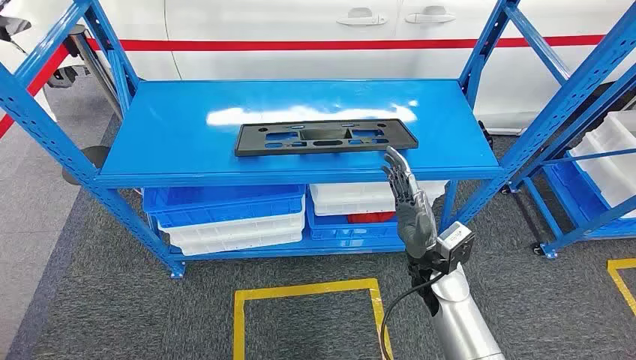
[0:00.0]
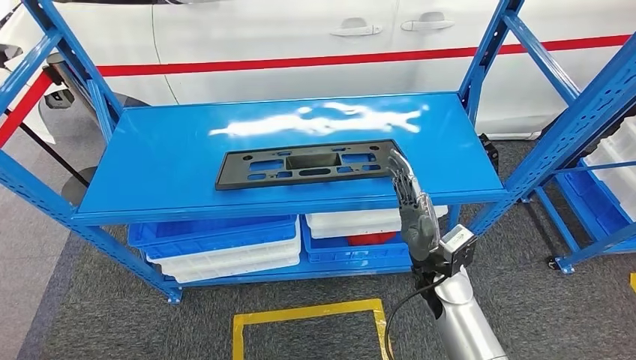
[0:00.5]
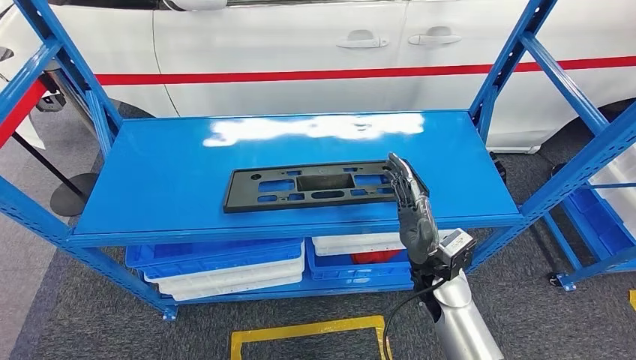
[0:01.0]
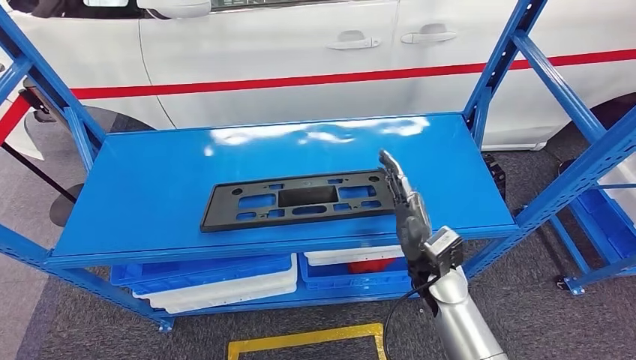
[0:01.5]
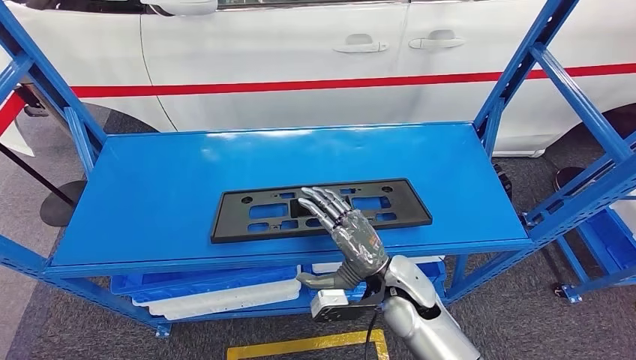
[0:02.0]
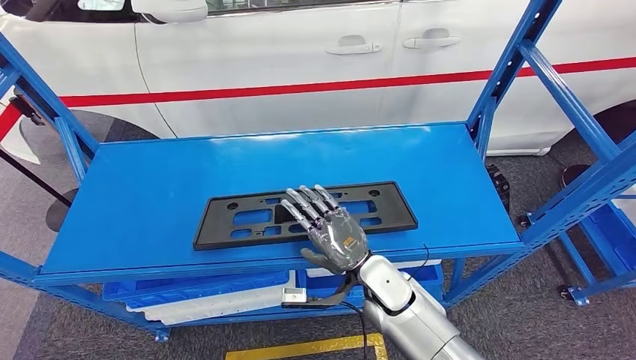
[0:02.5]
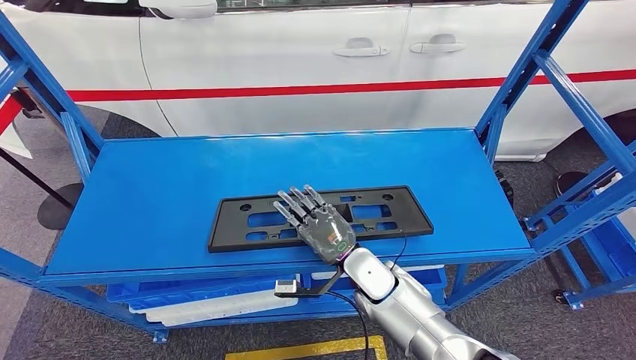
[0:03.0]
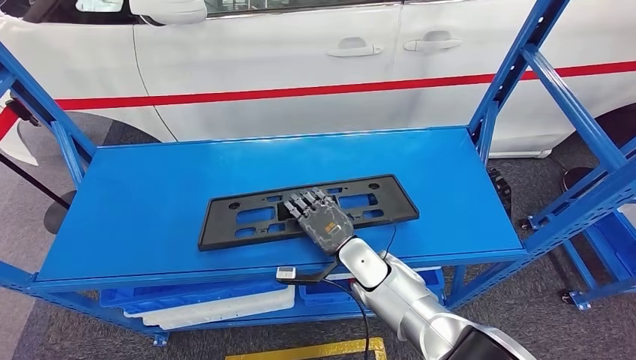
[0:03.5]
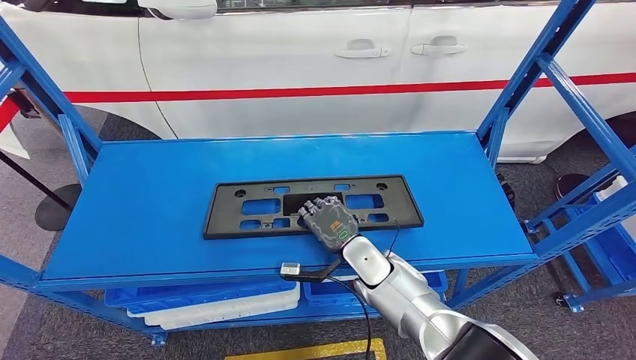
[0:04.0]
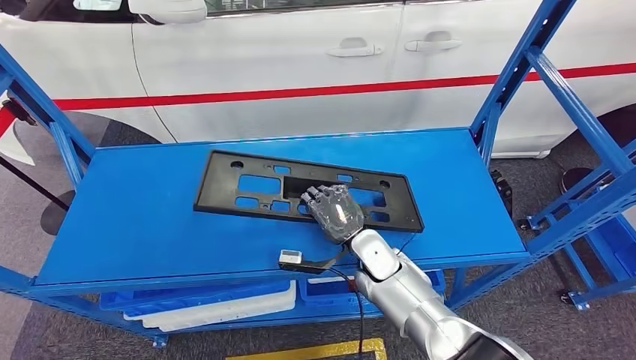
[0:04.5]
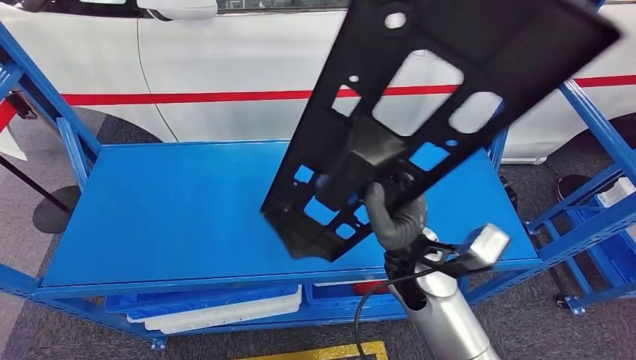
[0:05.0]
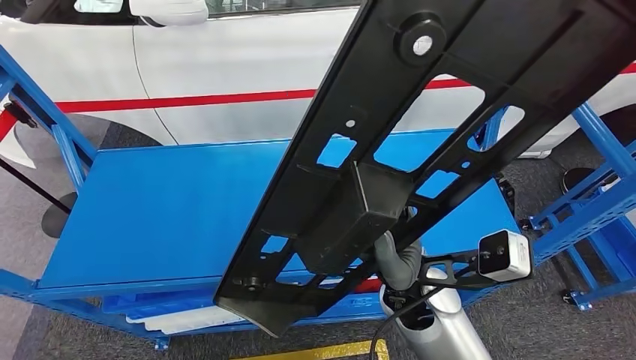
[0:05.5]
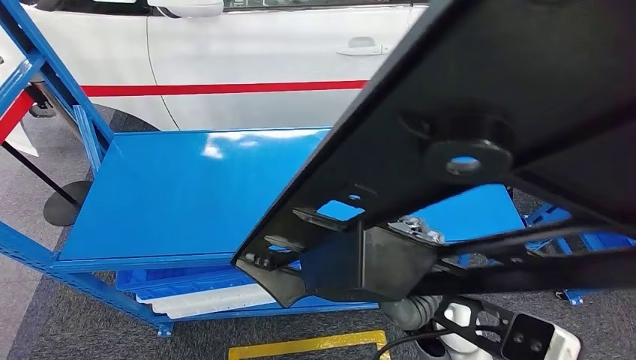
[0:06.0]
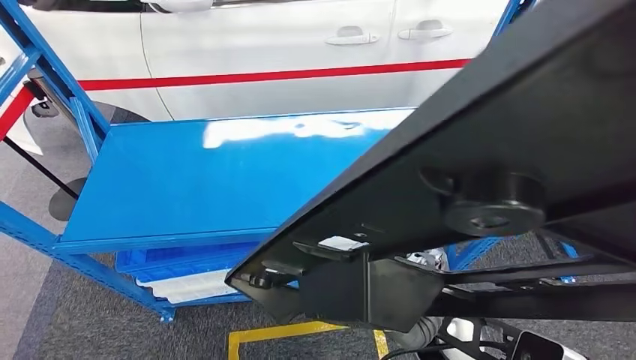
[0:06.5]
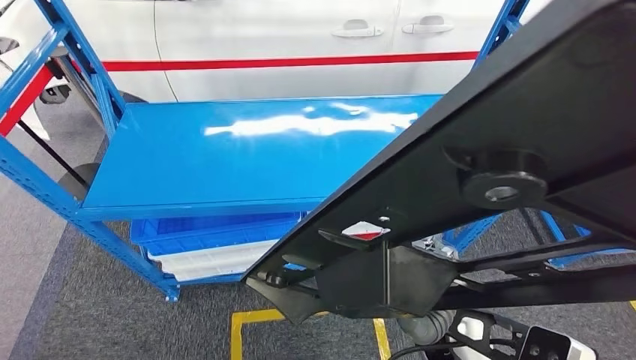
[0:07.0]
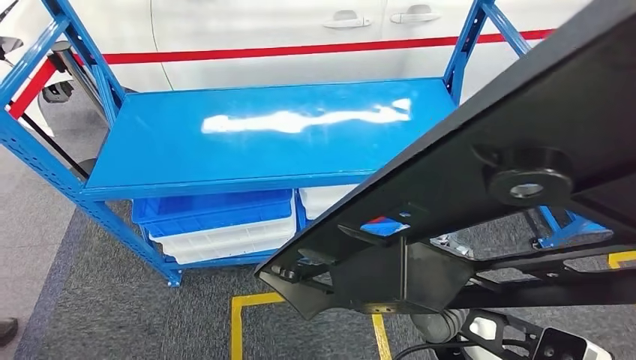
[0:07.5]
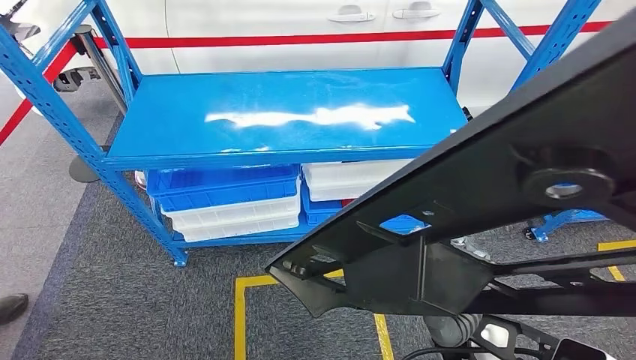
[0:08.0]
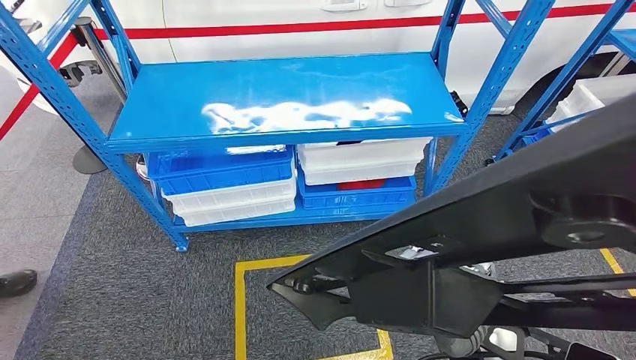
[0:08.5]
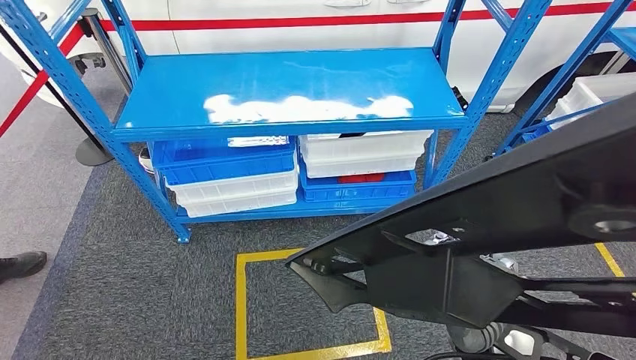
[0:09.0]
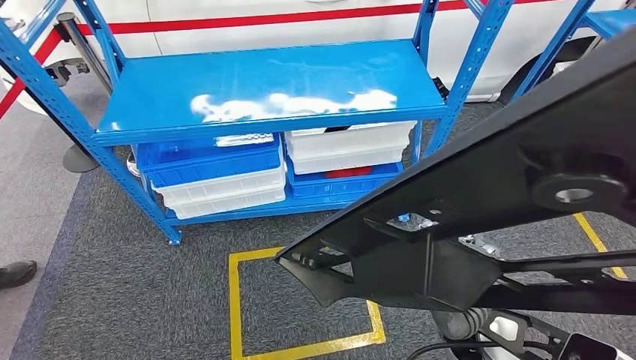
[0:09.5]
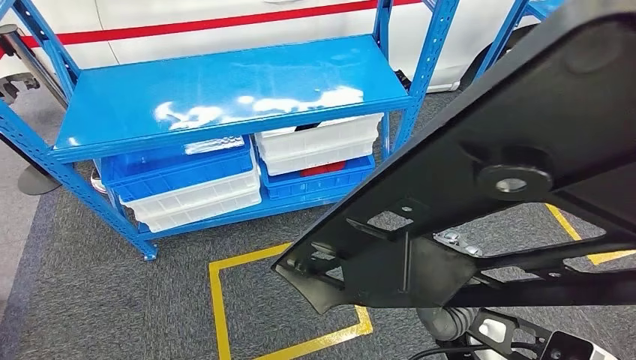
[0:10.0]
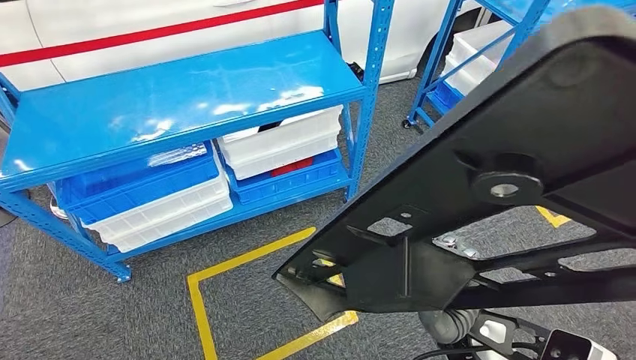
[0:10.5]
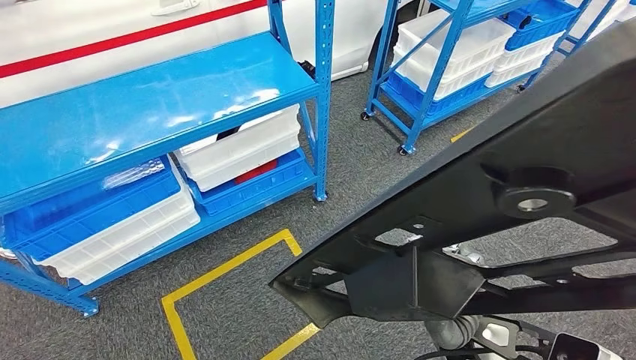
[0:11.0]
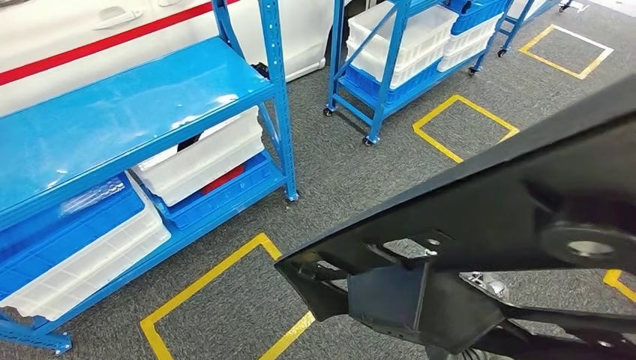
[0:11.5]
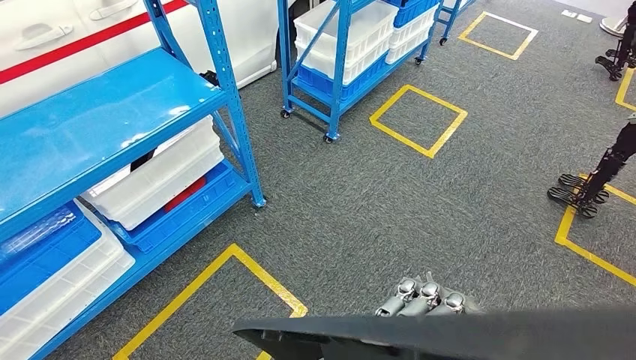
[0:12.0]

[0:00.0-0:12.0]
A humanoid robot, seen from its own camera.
Step, 0:00.0 to 0:04.5: Pick up the large material from the shelf.

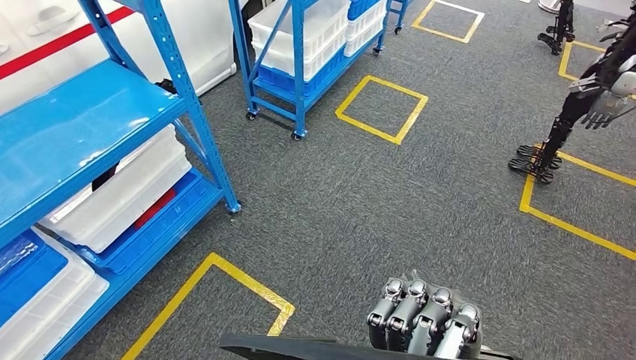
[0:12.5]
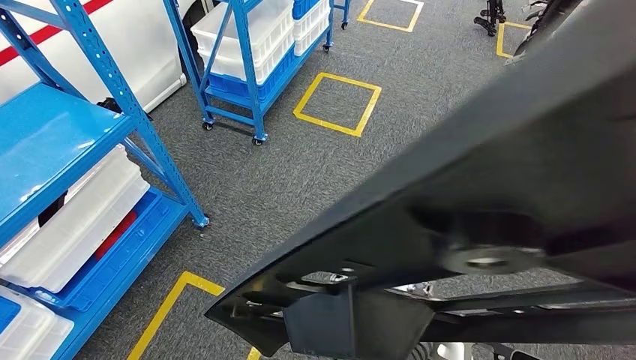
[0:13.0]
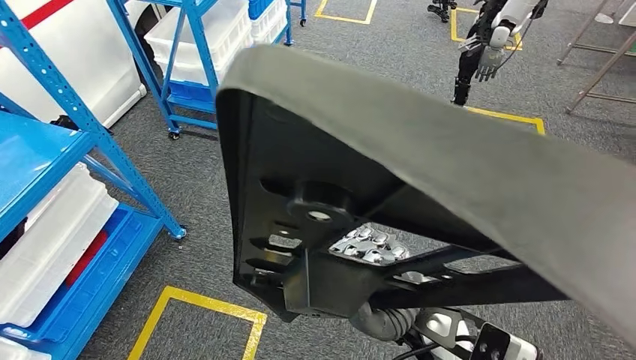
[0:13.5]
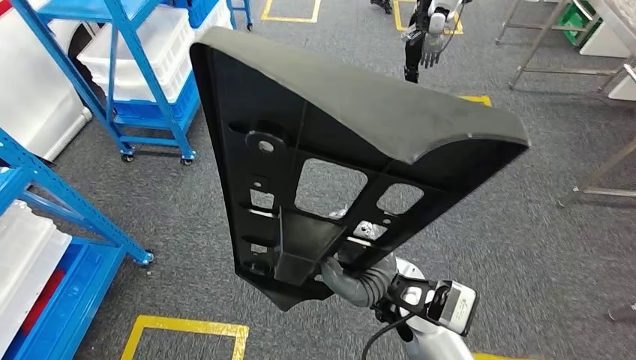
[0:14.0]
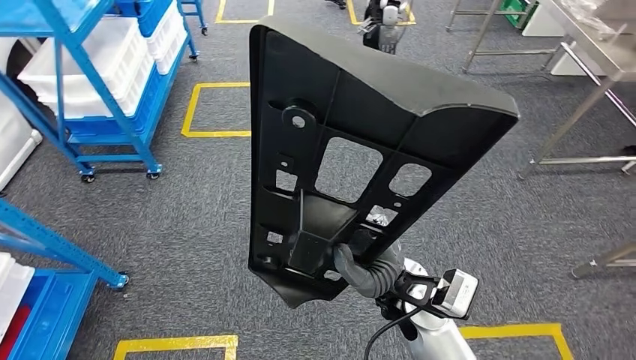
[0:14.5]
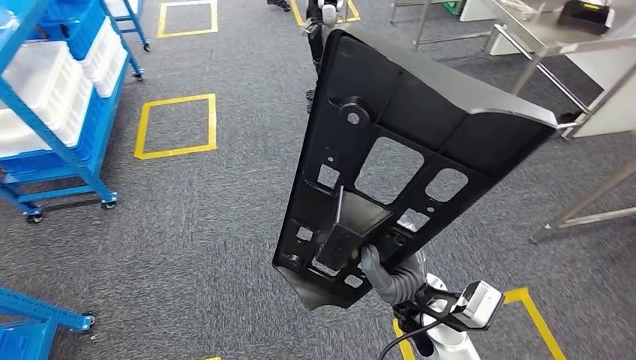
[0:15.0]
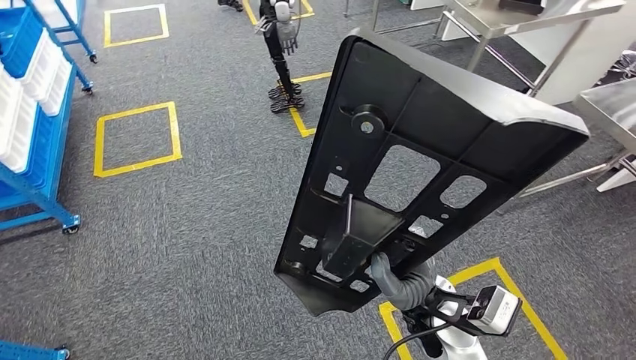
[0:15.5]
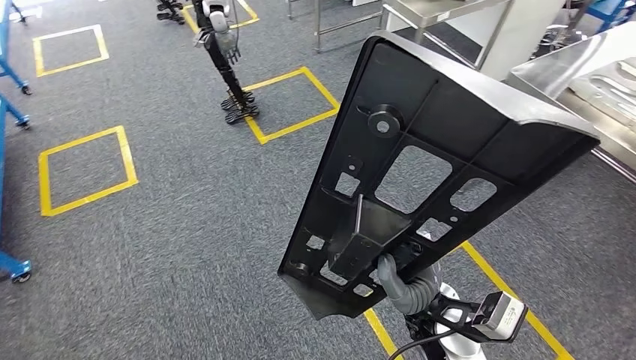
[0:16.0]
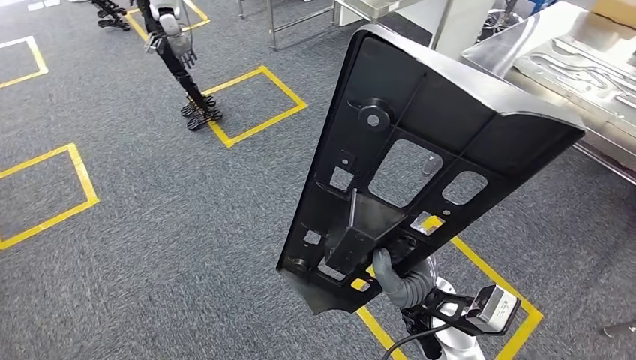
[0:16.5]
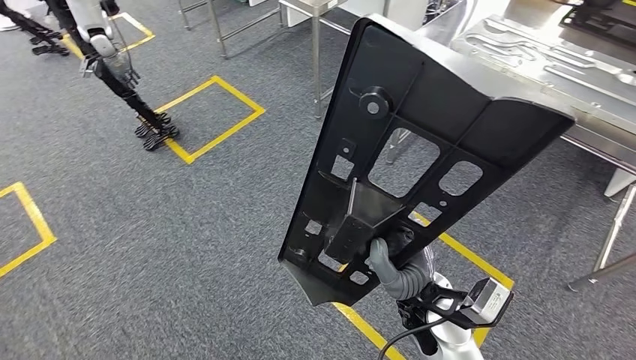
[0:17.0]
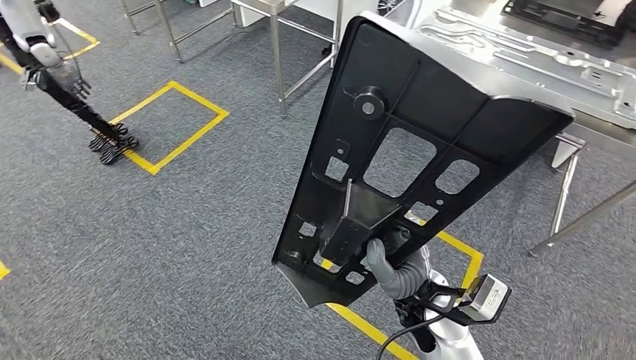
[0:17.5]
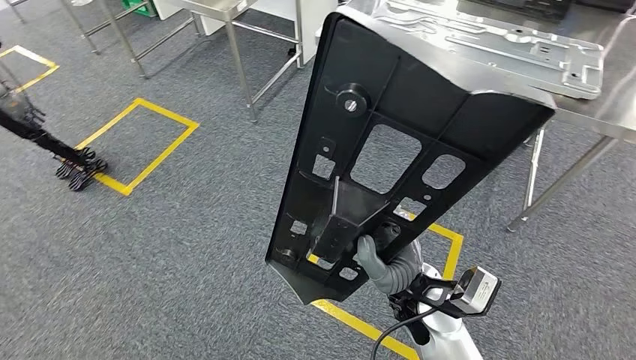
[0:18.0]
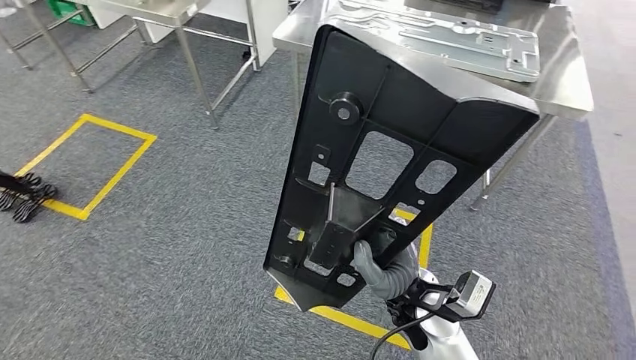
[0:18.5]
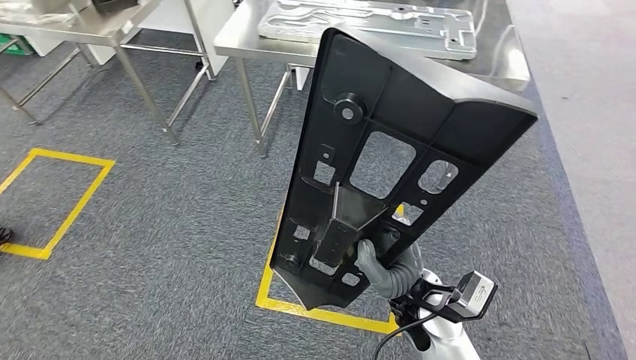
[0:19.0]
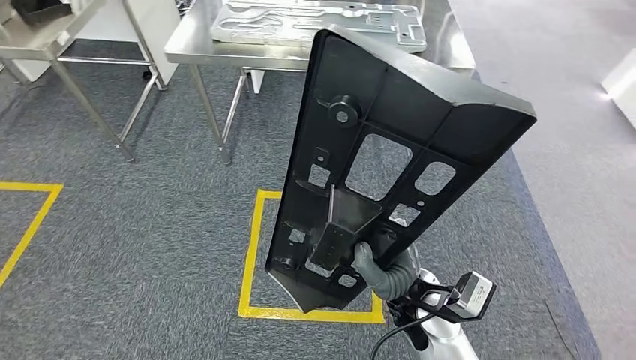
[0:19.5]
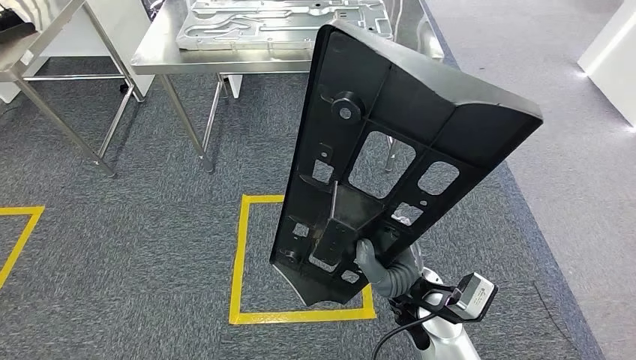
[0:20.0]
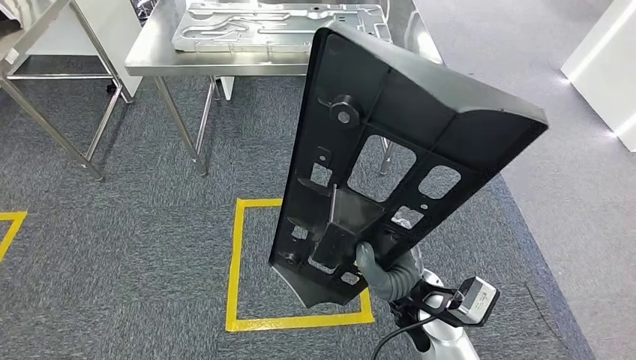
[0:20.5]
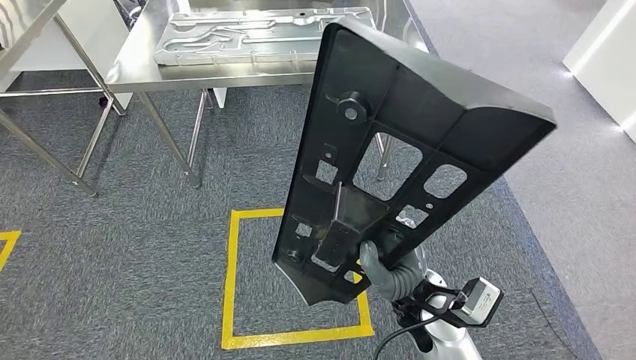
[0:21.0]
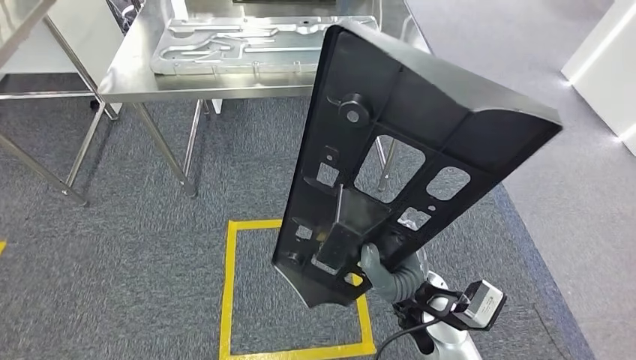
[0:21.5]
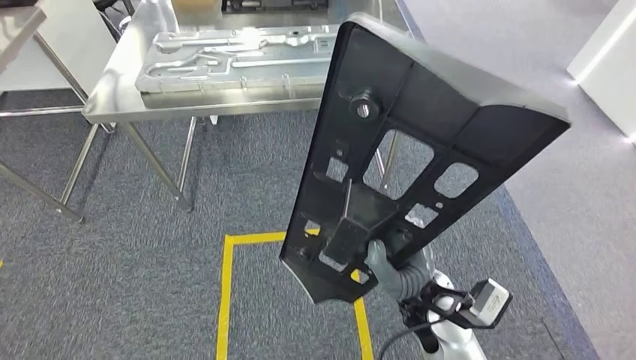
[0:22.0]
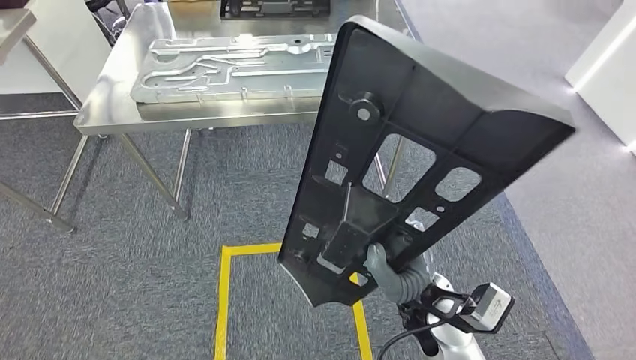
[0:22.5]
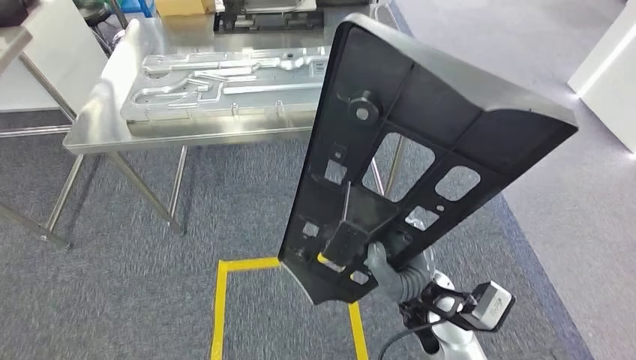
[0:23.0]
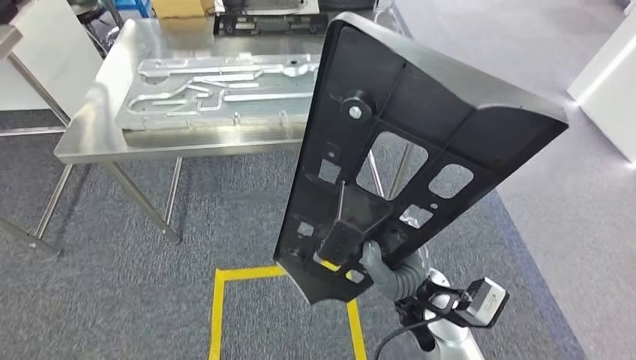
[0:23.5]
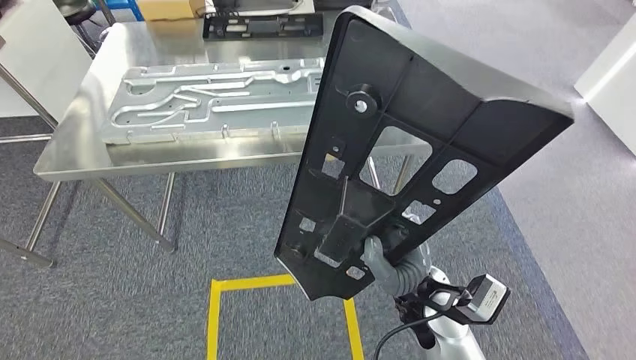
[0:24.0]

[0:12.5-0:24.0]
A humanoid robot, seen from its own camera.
Step, 0:12.5 to 0:21.0: Move the large material to the front of the workbench.
